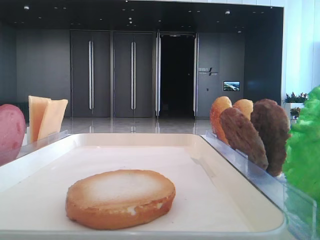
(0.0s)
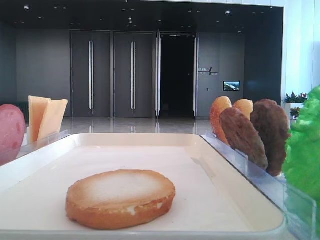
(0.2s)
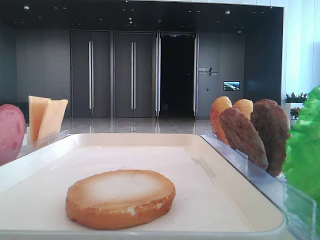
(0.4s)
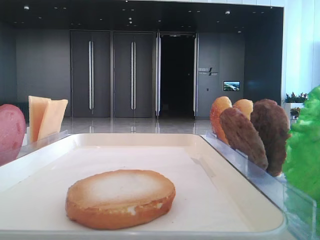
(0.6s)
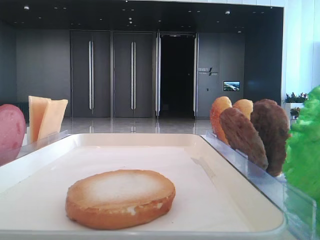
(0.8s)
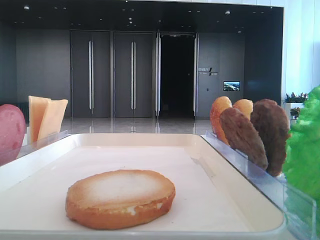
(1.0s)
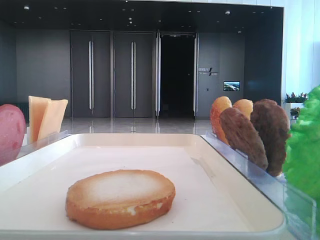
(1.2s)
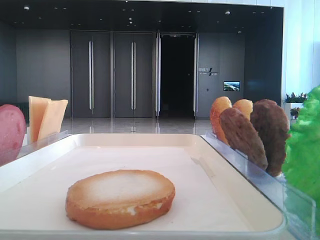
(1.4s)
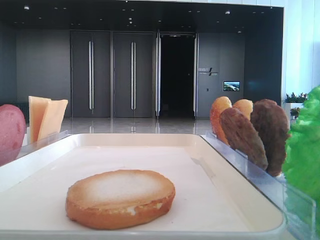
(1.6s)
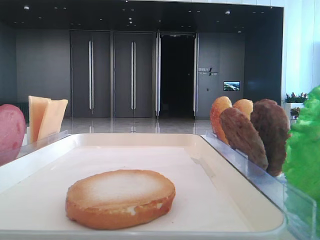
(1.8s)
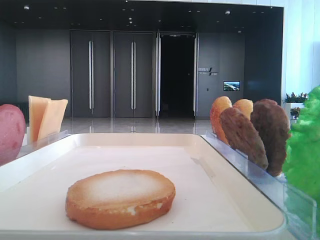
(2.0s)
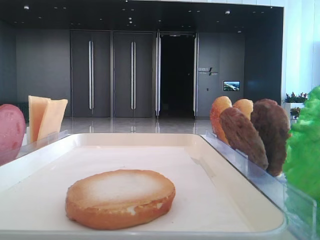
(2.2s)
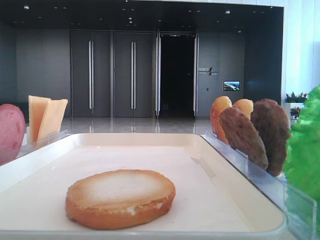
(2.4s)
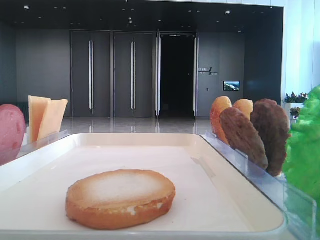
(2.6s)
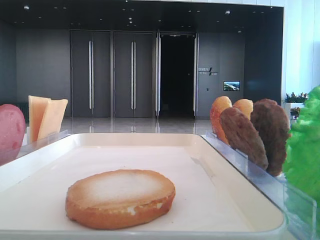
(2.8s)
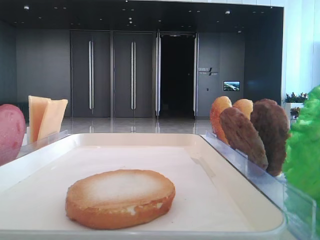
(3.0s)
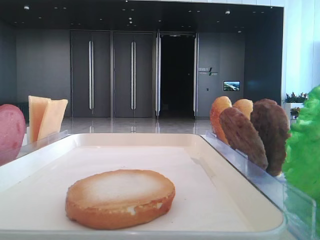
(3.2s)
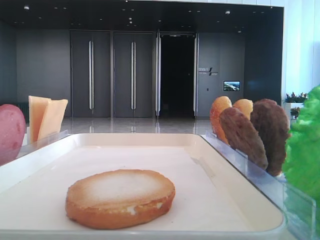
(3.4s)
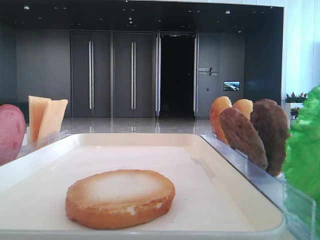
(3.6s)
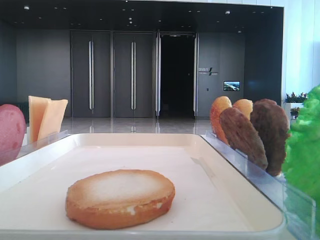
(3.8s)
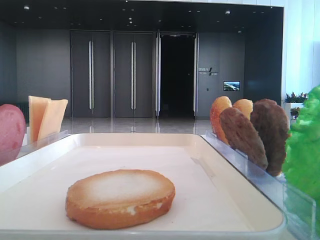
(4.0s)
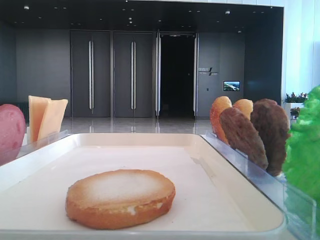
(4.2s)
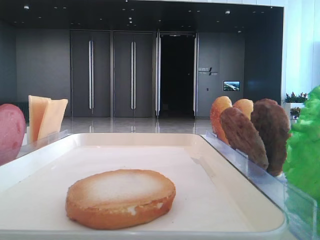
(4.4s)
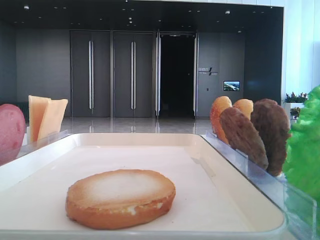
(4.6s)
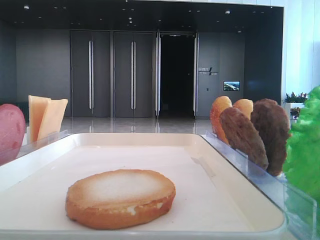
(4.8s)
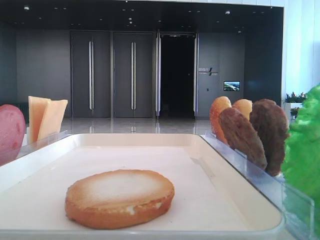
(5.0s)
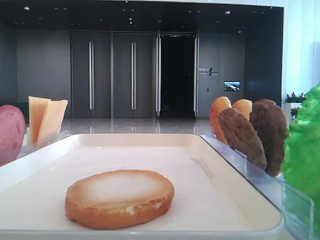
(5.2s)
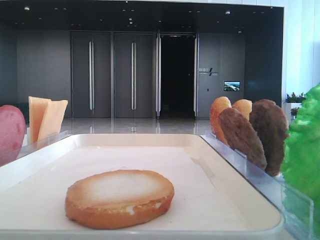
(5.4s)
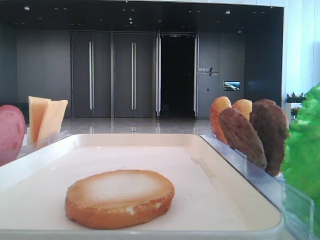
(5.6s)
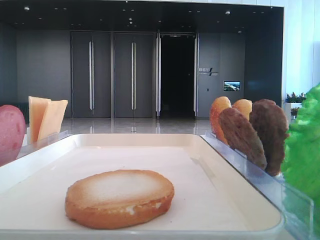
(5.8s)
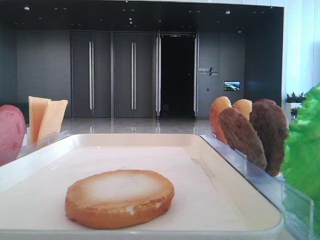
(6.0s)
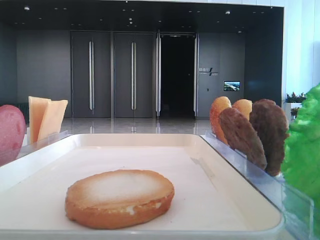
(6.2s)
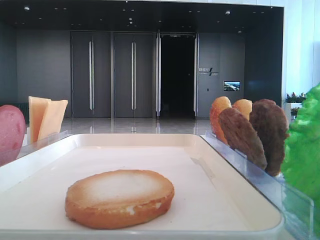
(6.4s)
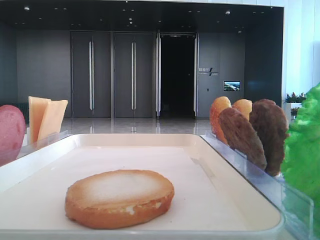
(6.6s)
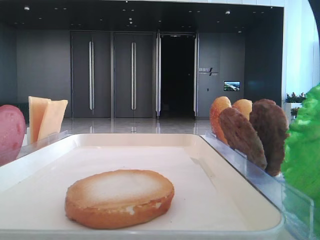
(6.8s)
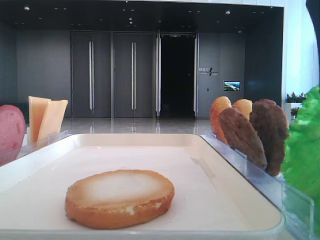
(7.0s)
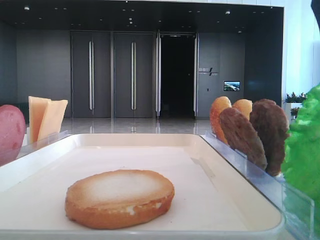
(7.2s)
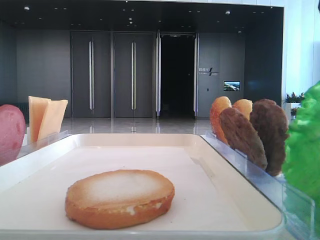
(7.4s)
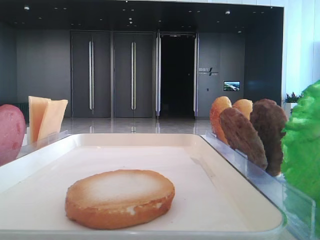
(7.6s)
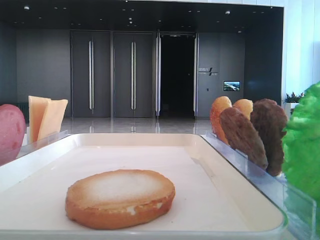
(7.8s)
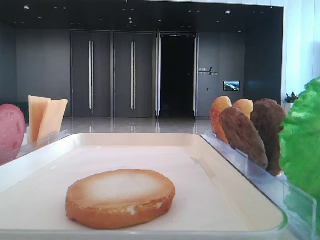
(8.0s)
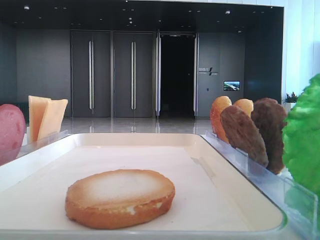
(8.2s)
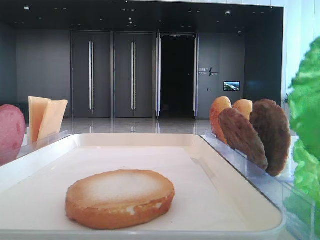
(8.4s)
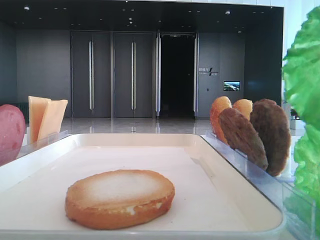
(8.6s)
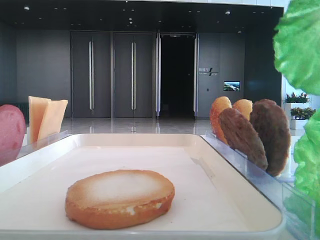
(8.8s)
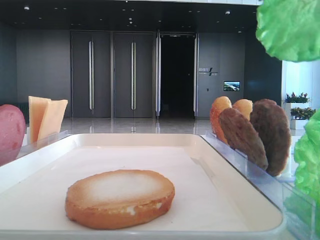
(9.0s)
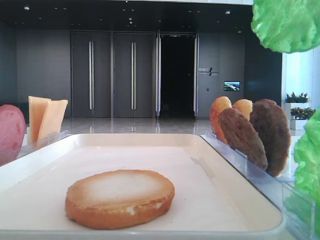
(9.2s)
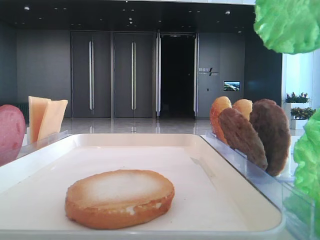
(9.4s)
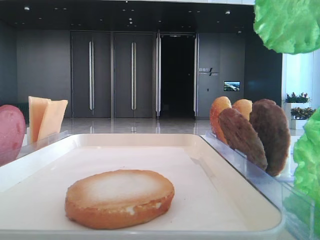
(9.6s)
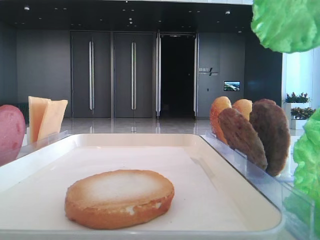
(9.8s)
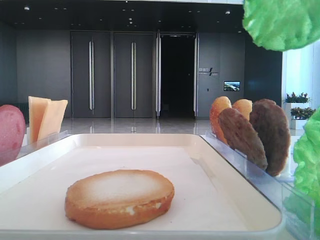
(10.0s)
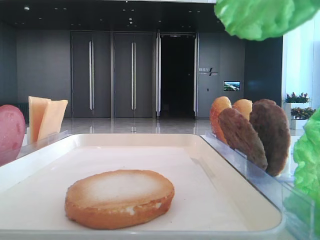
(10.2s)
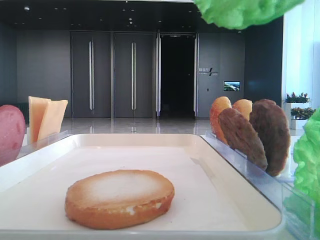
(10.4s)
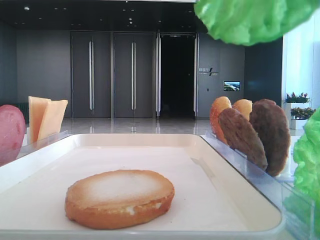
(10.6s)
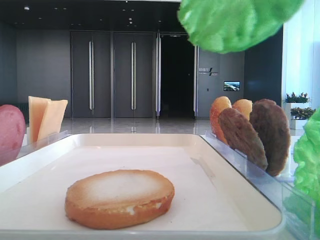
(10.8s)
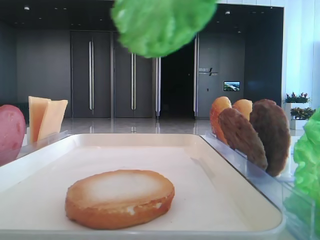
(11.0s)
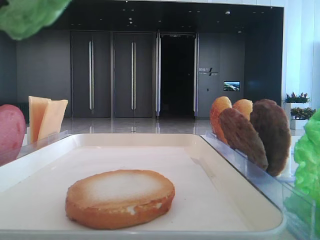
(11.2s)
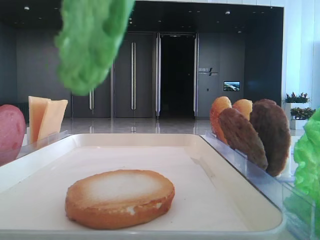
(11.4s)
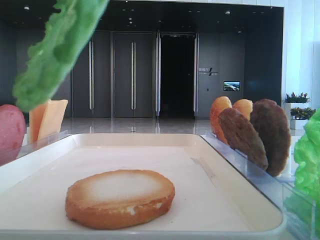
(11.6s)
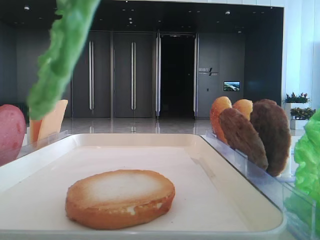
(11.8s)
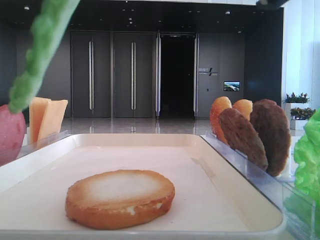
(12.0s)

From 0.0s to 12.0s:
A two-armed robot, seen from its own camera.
Step, from 0.0s to 7.8s: Grab the lettuce leaf with the right hand.
From 4.4s to 6.0s: The left gripper closes up, while the right gripper travels to the left by approximately 10 cm.
From 6.0s to 7.6s: The right gripper closes its fingers.
From 7.6s to 9.0s: The right gripper travels upward by approximately 10 cm.
From 9.0s to 10.4s: The right gripper travels backward by roughly 5 cm.
From 10.4s to 12.0s: The right gripper goes about 10 cm downward.

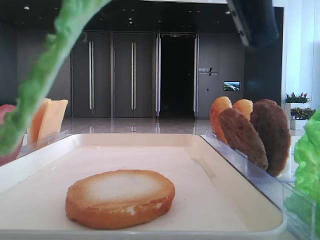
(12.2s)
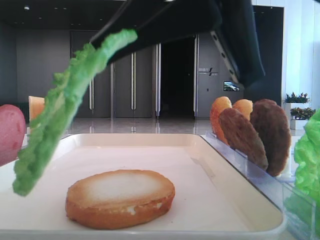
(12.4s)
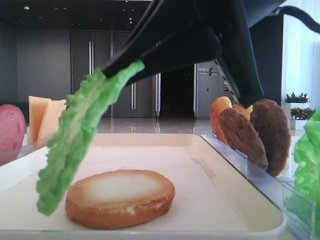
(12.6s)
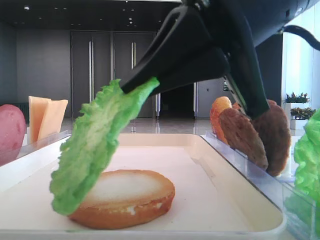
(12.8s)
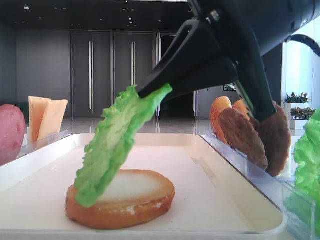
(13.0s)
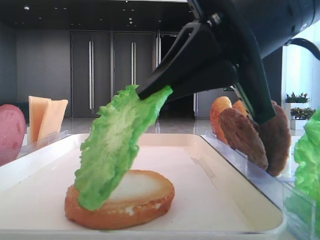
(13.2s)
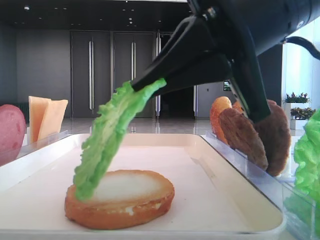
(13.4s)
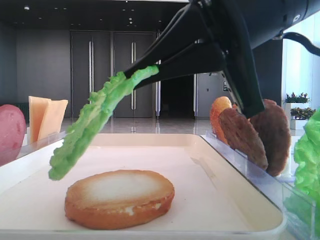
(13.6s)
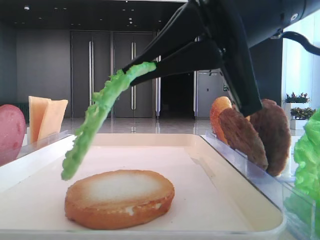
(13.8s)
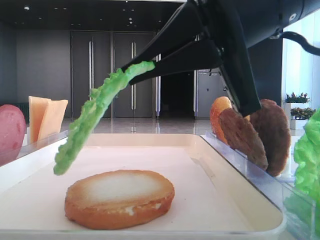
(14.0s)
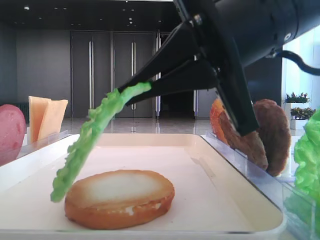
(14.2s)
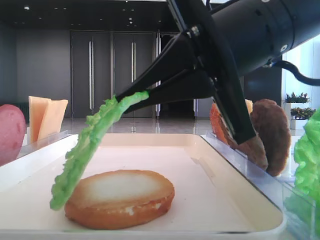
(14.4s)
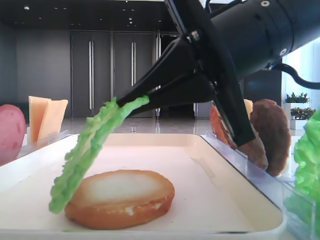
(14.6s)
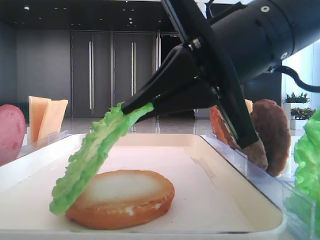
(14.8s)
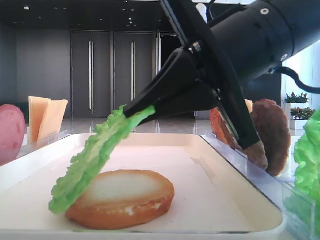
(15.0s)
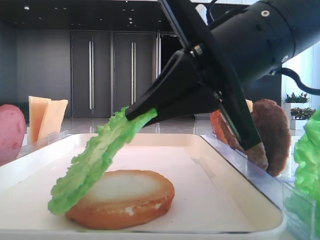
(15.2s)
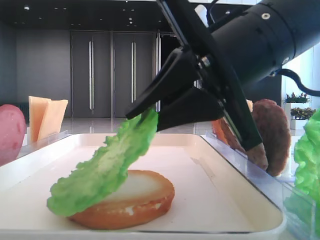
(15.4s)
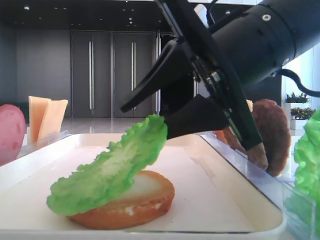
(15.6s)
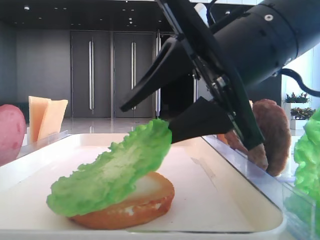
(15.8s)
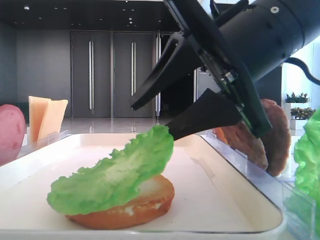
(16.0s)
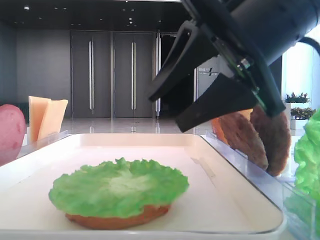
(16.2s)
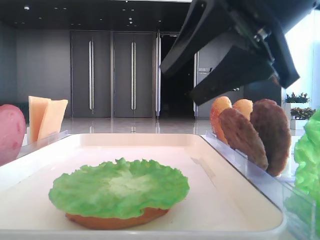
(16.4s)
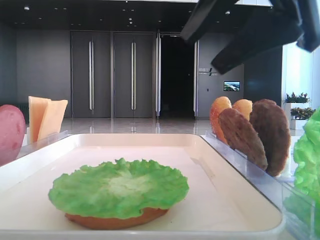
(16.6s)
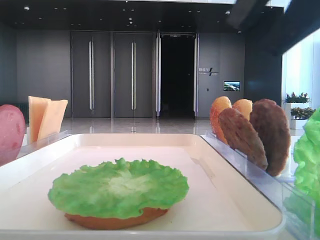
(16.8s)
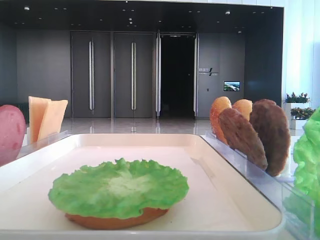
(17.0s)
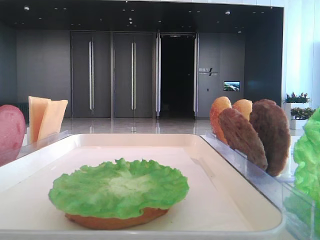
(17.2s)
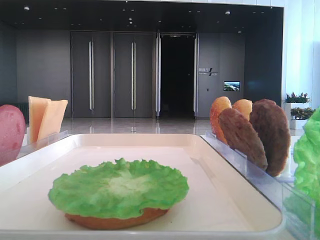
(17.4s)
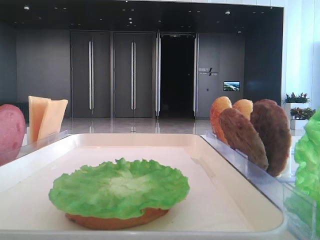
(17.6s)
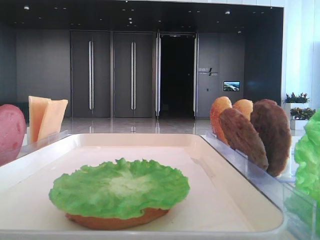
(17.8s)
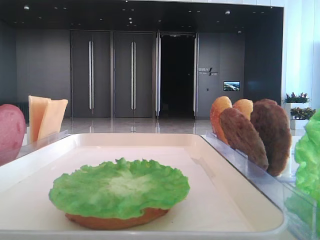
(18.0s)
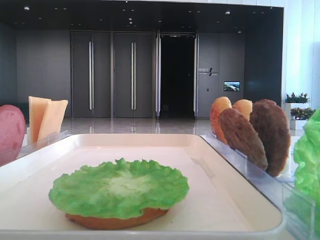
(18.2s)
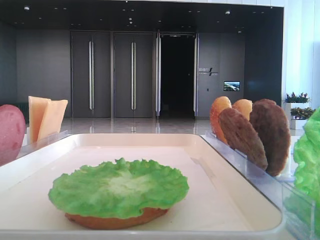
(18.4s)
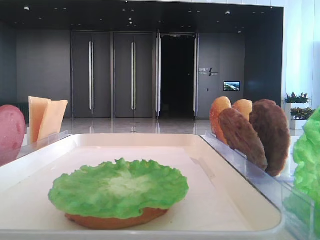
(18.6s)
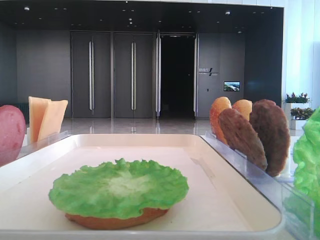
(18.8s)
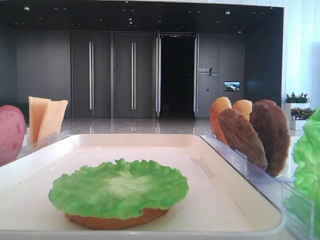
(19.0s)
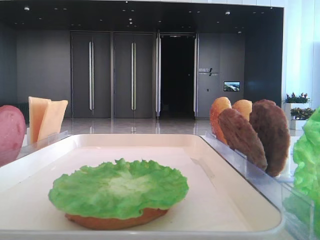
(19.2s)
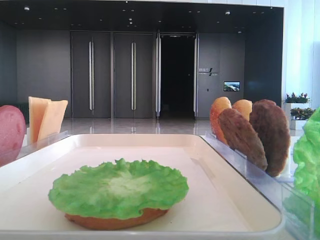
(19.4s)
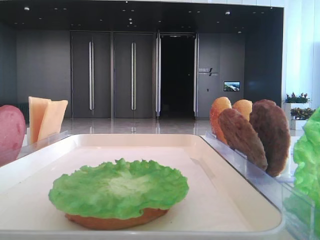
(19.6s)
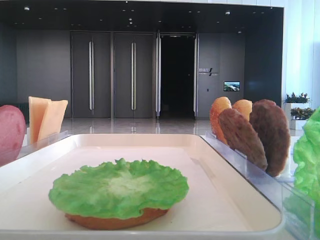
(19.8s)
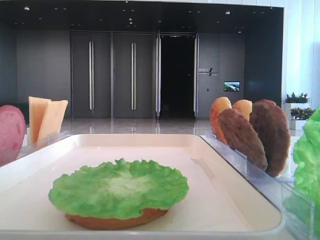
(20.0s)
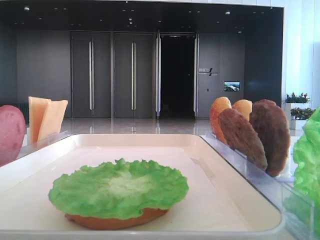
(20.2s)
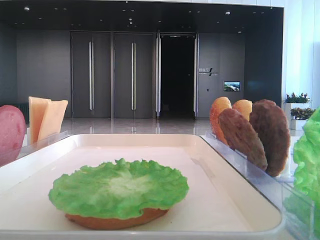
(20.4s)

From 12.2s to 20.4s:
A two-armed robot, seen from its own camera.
Step, from 12.2s to 16.0s: Place the lettuce leaf on the bottom bread with the right hand.
From 12.2s to 13.8s: The right gripper shifts roughly 10 cm forward and downward.
From 15.4s to 17.2s: The right gripper shifts some 20 cm to the right, upward and backward, and opens its fingers.

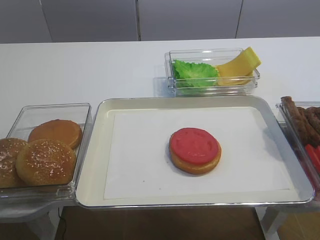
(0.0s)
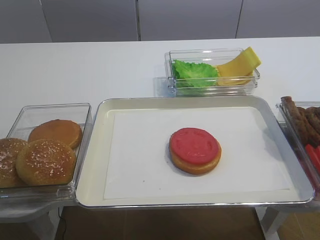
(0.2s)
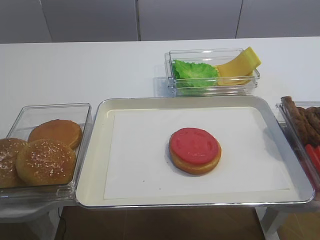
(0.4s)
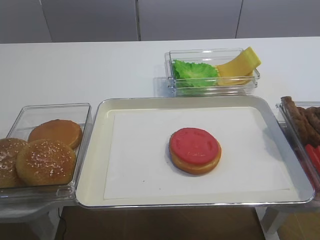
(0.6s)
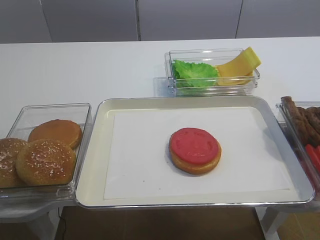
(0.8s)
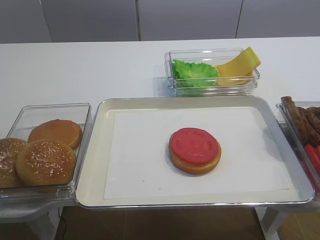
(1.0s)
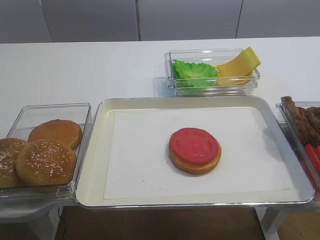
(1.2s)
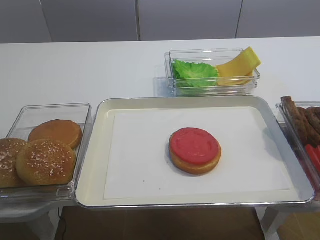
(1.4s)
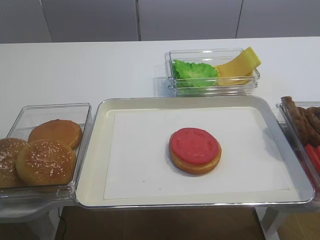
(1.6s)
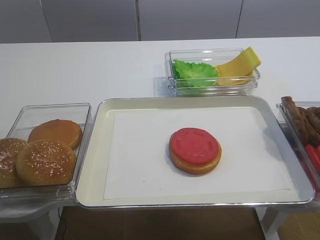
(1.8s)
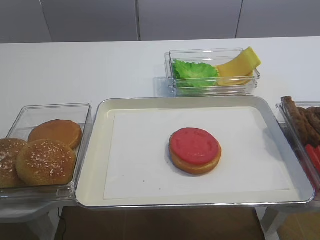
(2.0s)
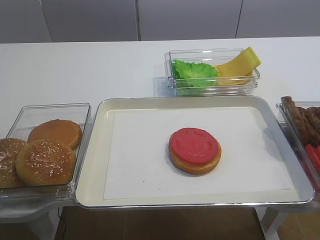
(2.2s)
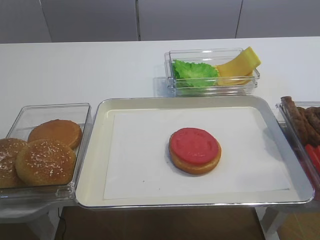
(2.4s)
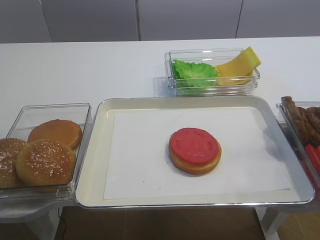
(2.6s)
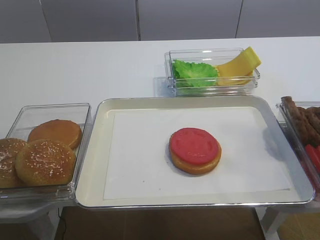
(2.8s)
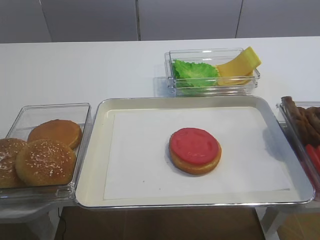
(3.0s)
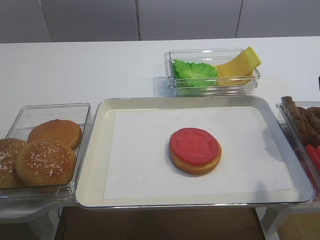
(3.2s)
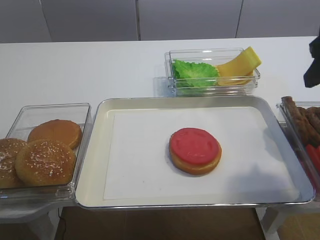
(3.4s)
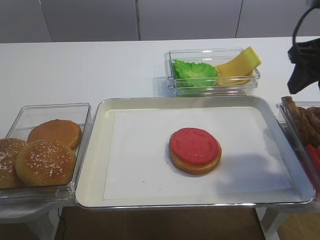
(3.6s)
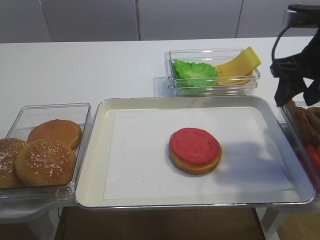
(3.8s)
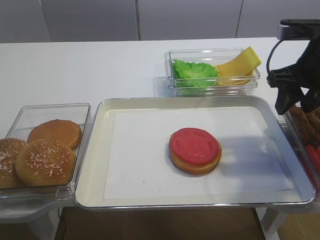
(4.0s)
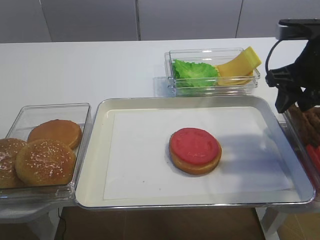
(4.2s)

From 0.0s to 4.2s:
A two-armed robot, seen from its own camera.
From 2.8s to 4.2s: The right gripper travels forward by roughly 20 cm.
